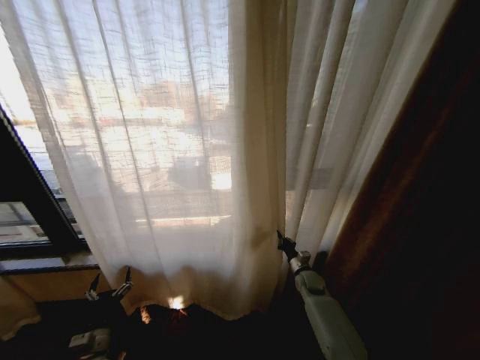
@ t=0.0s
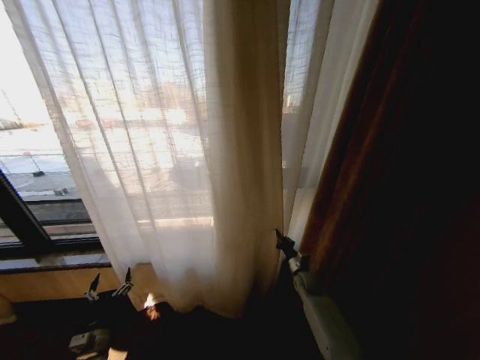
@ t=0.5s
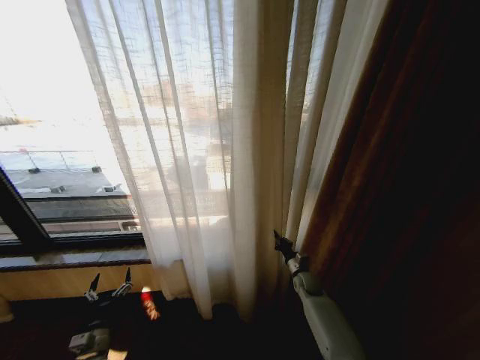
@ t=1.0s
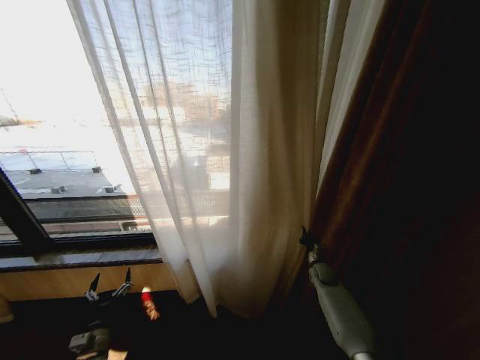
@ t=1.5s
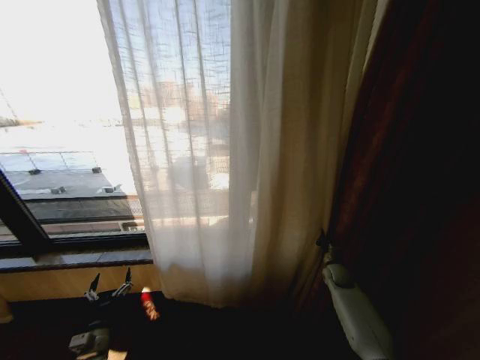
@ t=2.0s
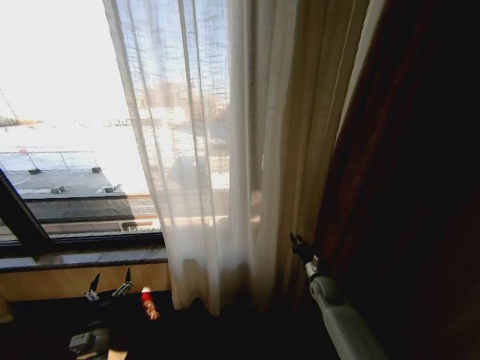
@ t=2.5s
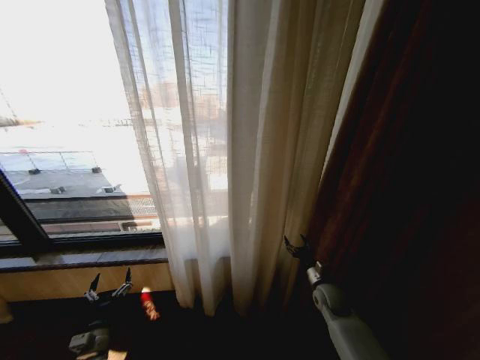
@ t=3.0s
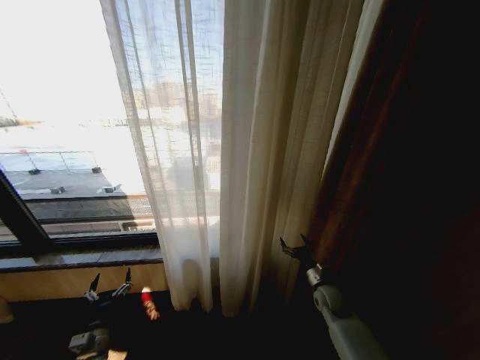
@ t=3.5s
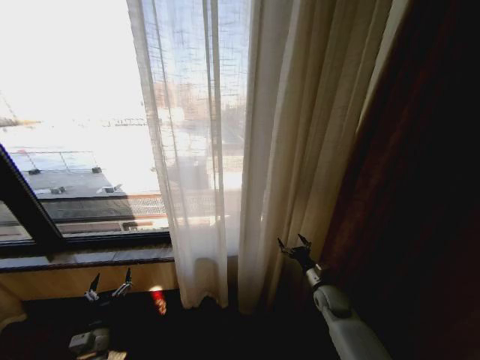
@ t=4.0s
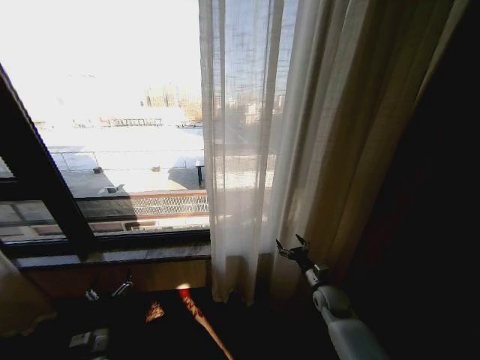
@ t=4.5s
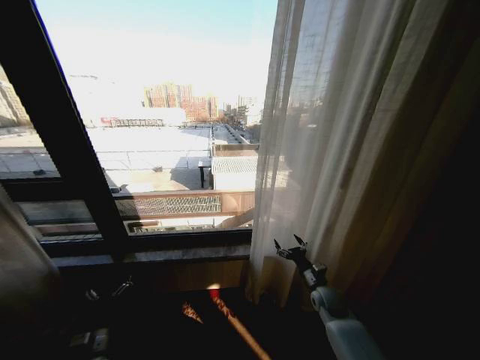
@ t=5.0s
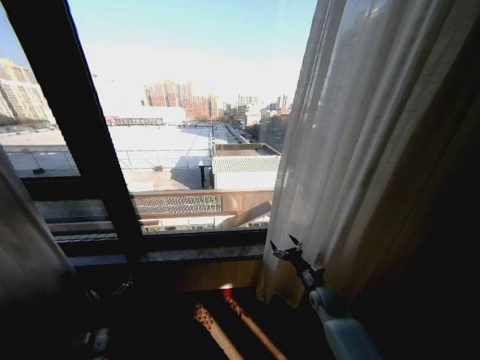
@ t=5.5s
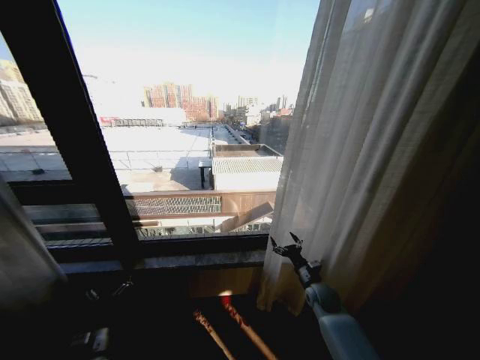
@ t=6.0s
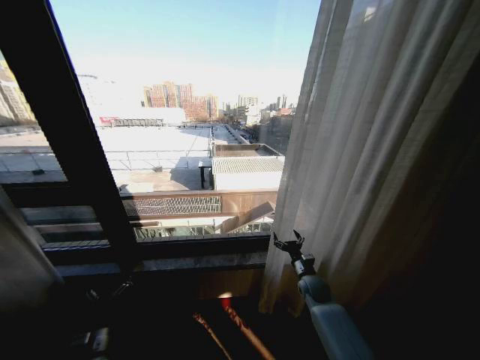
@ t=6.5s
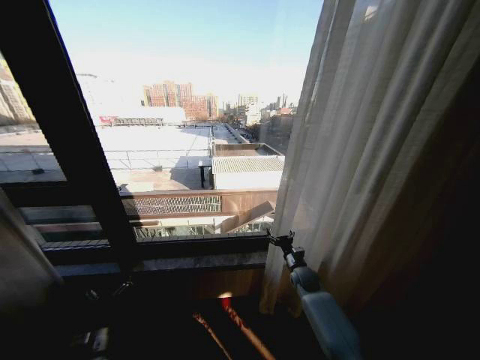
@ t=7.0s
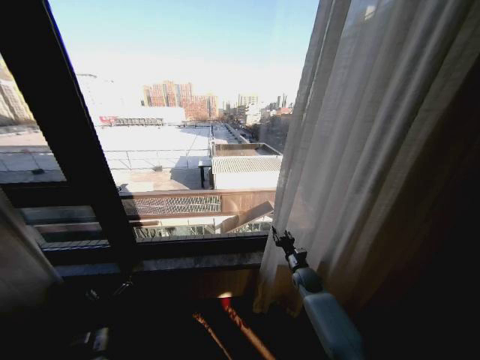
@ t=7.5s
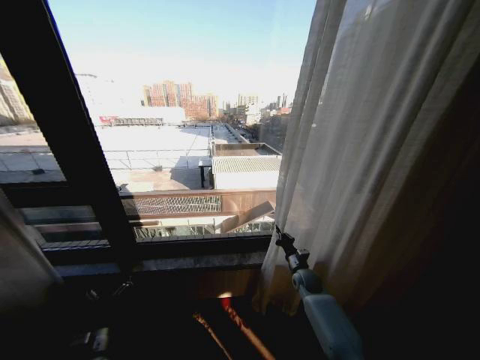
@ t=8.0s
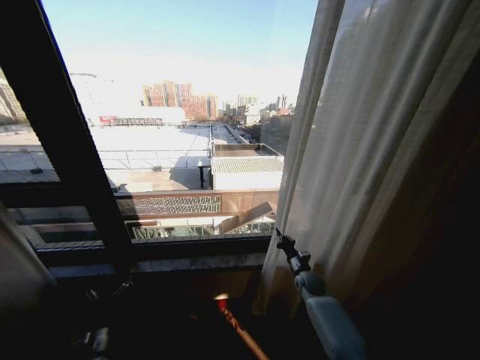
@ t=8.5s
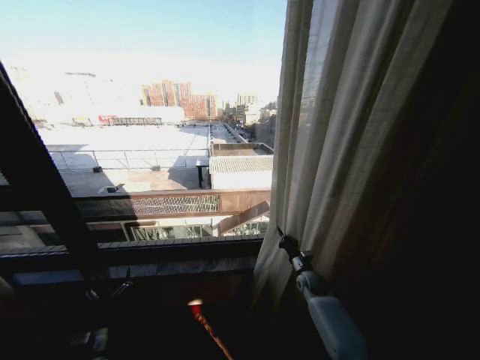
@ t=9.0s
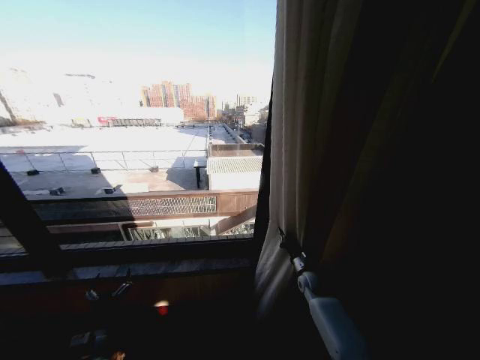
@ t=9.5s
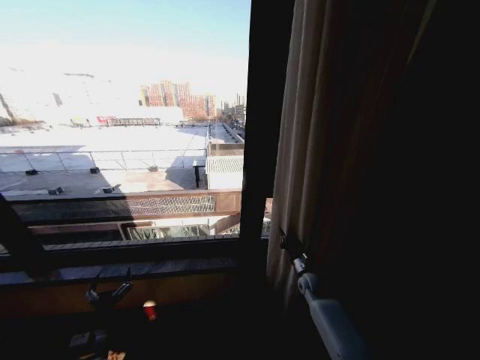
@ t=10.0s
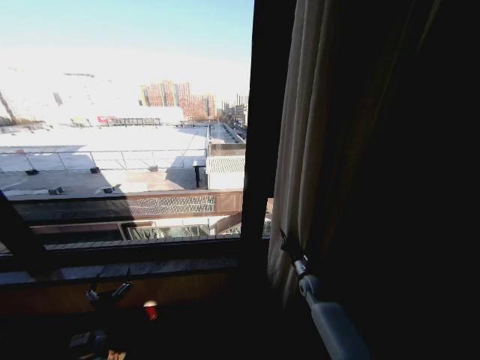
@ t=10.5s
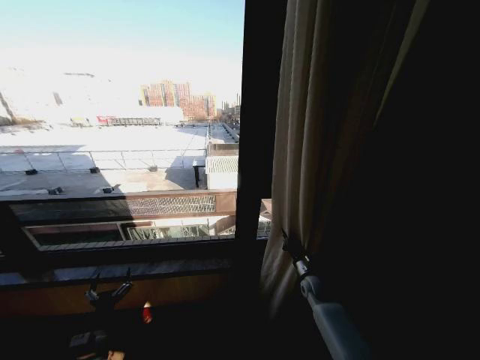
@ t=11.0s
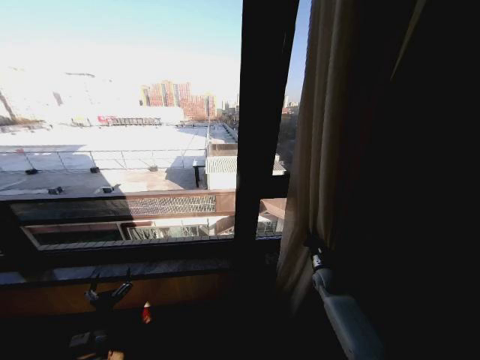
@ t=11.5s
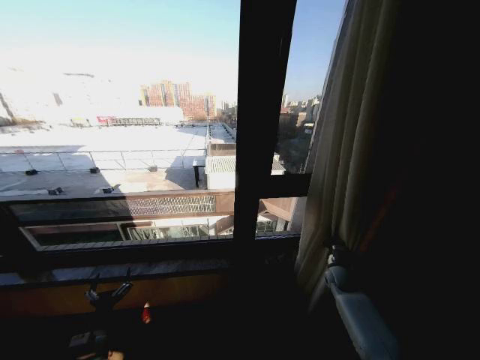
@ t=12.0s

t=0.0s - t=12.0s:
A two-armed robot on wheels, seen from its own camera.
Task of the whole recording: Open the curtains by pulling them apart, changing their state from closed to fully open.
t=0.0s - t=2.0s: The right gripper shifts approximately 10 cm to the right.
t=2.0s - t=4.0s: The right gripper travels backward and to the left by about 10 cm, and opens.
t=6.0s - t=8.0s: The right gripper shifts about 5 cm forward, and closes.
t=10.0s - t=12.0s: The right gripper shifts about 10 cm to the right.

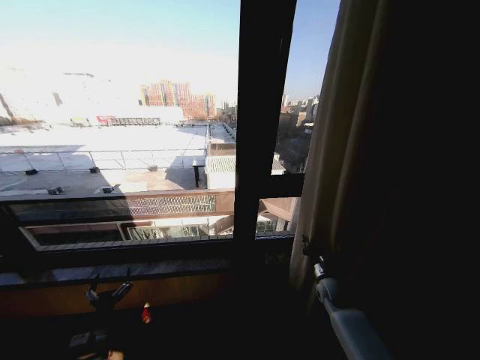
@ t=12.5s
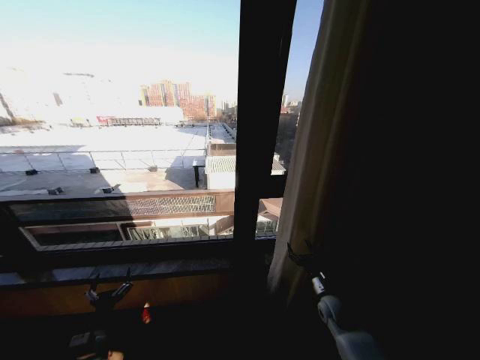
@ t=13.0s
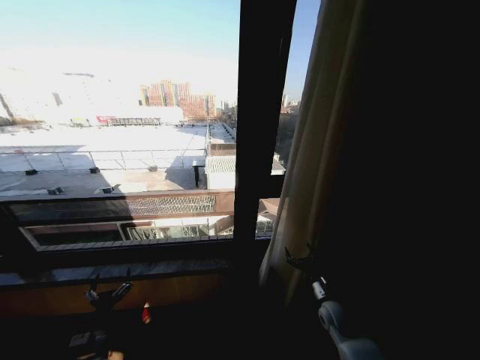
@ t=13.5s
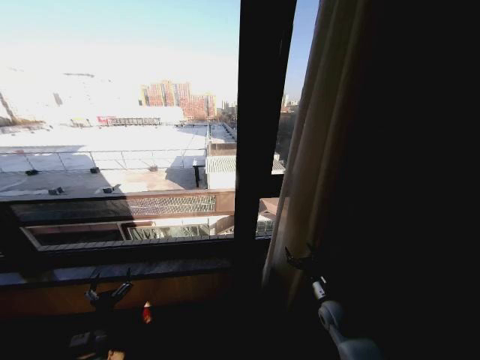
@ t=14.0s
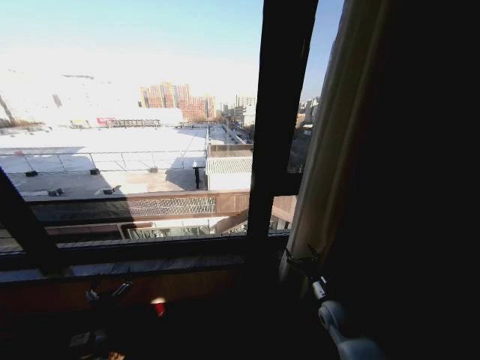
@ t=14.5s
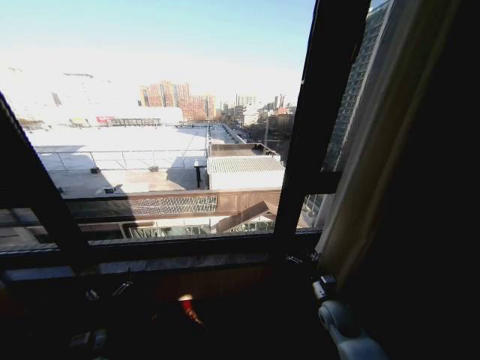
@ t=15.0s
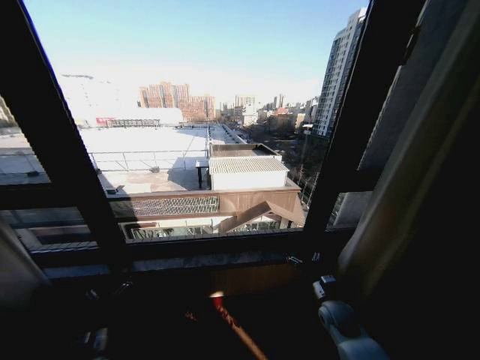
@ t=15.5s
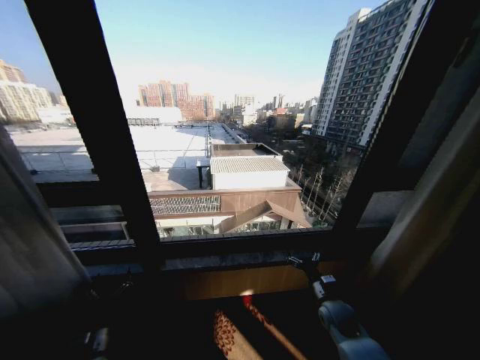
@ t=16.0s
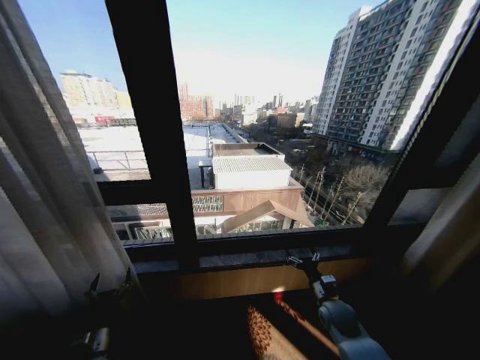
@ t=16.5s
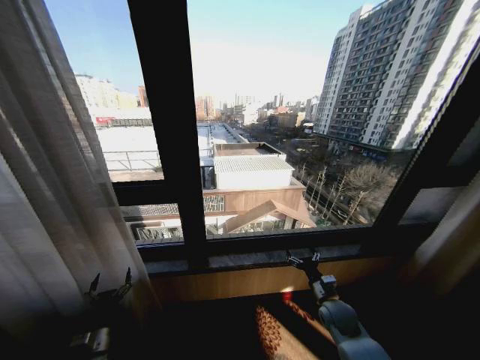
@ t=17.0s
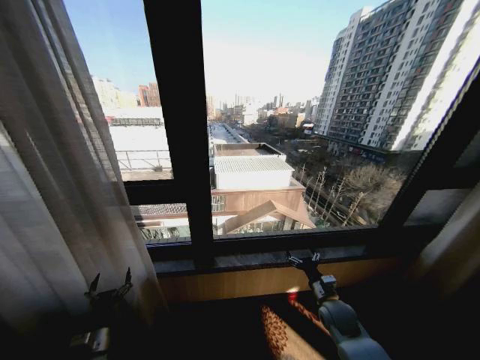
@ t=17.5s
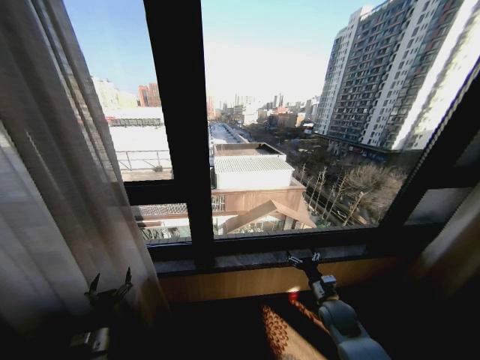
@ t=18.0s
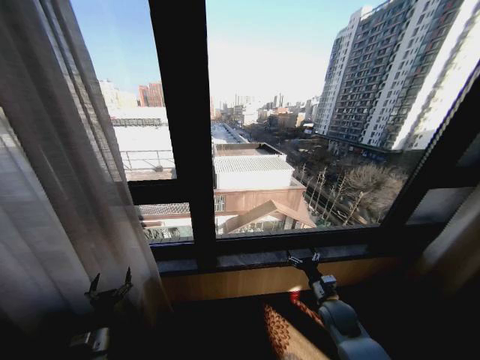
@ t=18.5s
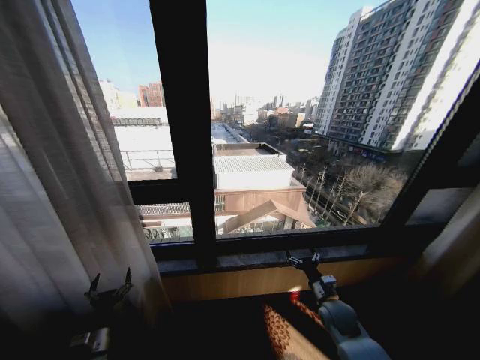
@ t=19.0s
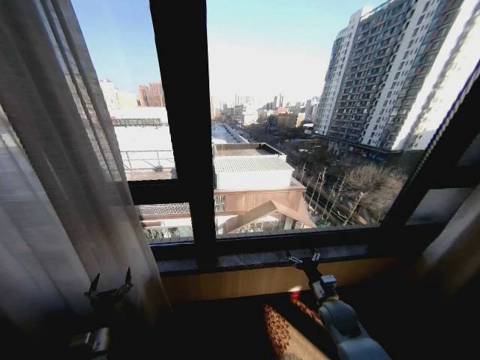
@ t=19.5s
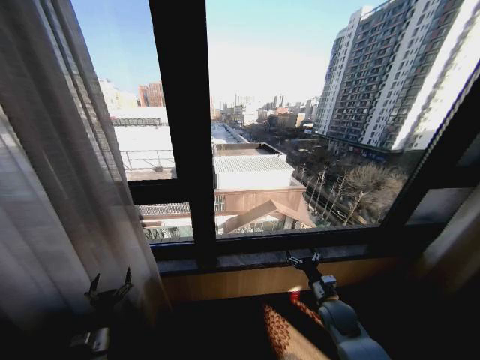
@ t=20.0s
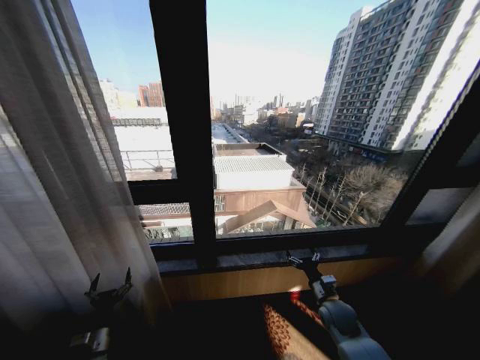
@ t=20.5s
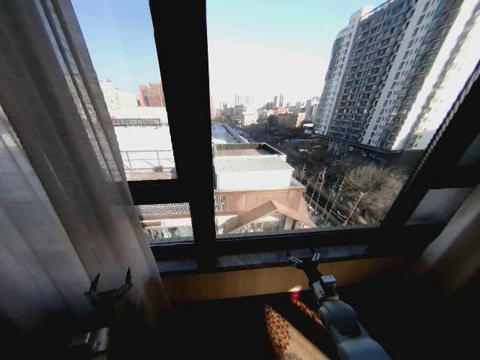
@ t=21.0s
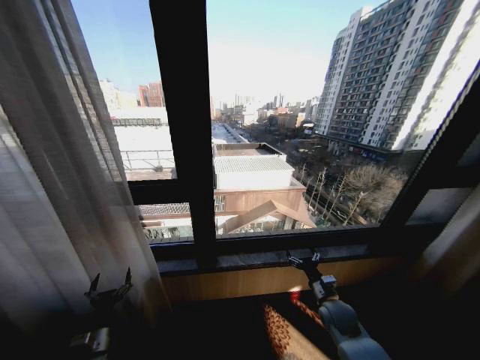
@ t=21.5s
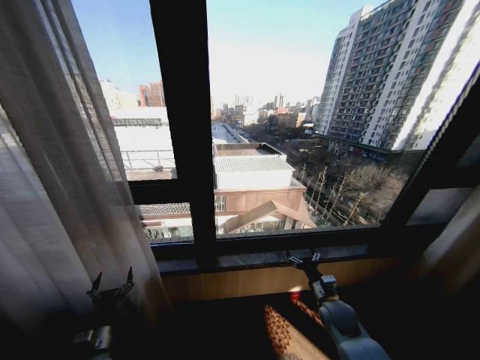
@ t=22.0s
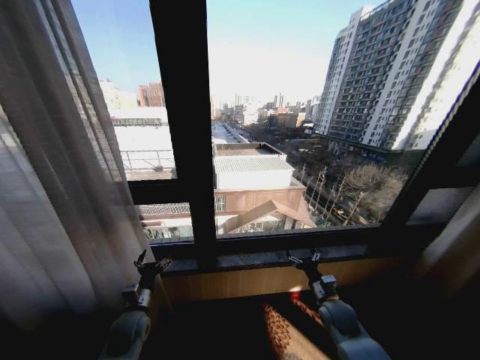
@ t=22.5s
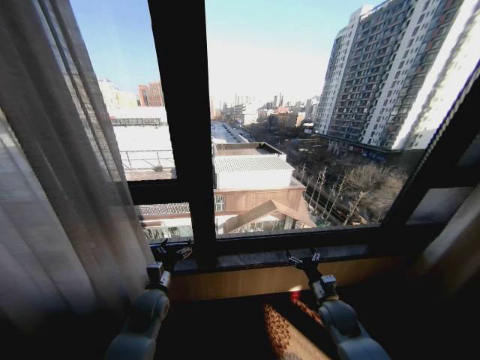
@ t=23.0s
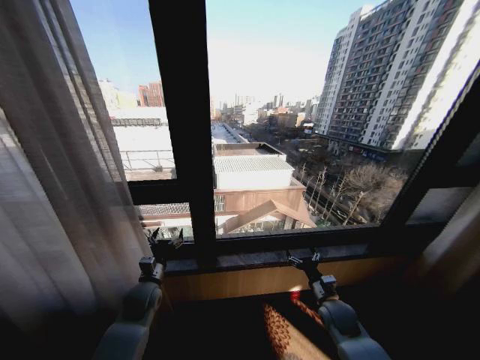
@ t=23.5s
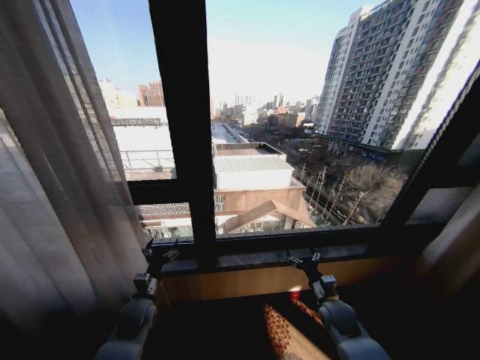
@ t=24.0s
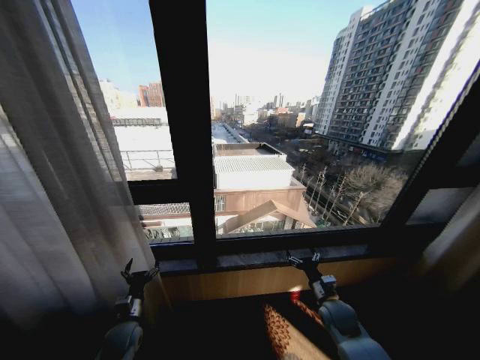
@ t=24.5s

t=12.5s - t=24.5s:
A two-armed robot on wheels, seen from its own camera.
Task of the whole recording: Open the curtains by pulling them apart, changing their state from closed to fully open.
t=12.5s - t=14.5s: The right gripper shifts roughly 5 cm backward, and opens its fingers.
t=18.5s - t=20.5s: Neither gripper changes place.
t=20.5s - t=22.5s: The left gripper shifts some 15 cm to the right, forward and upward.

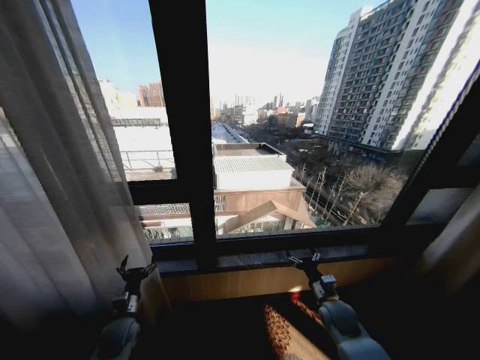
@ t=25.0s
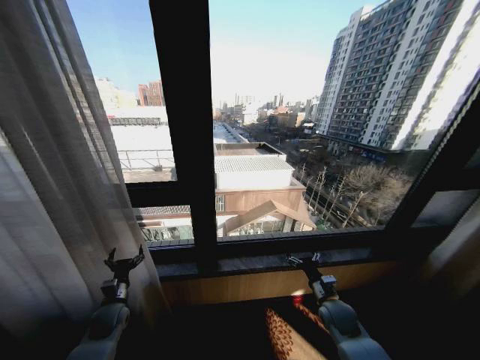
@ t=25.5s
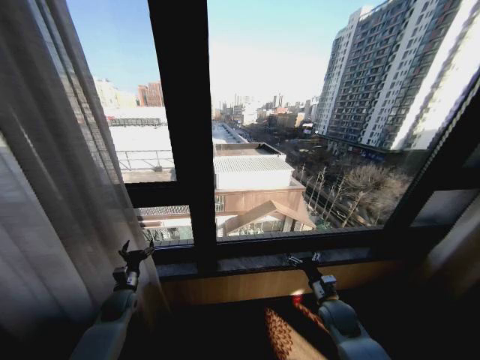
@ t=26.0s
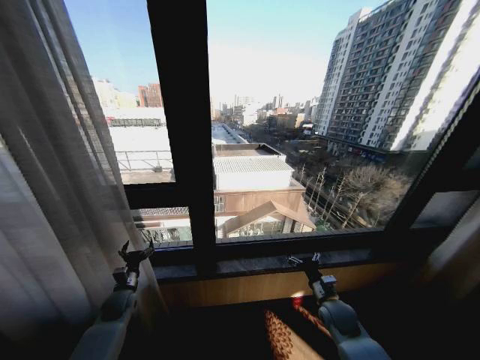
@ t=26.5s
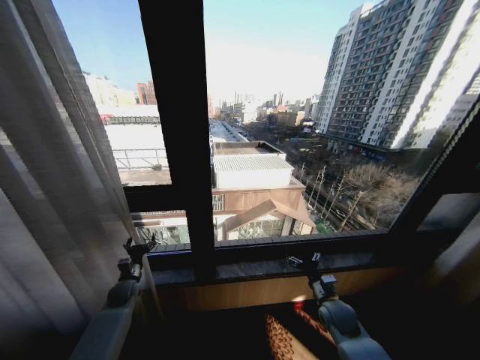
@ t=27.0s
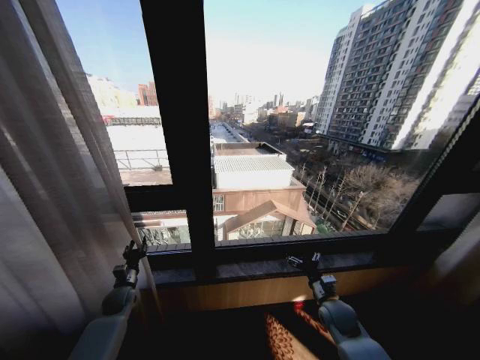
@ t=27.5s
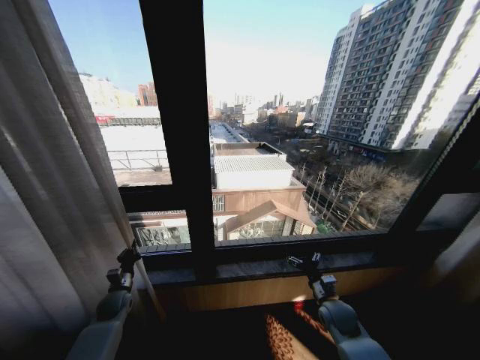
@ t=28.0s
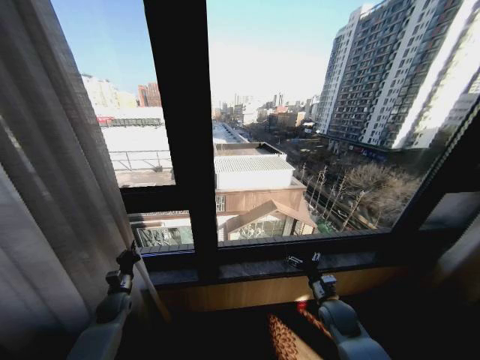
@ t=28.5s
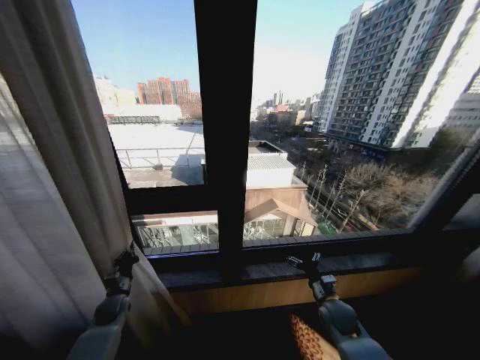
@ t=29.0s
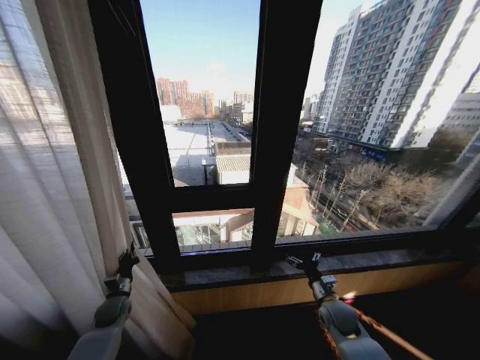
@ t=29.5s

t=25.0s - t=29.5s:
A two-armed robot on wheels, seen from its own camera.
Task of the whole recording: Open the curtains by pulling them apart, changing their state from closed to fully open.
t=25.0s - t=27.0s: The left gripper moves forward, approximately 10 cm.
t=27.0s - t=29.5s: The left gripper changes place by some 5 cm, and closes.
